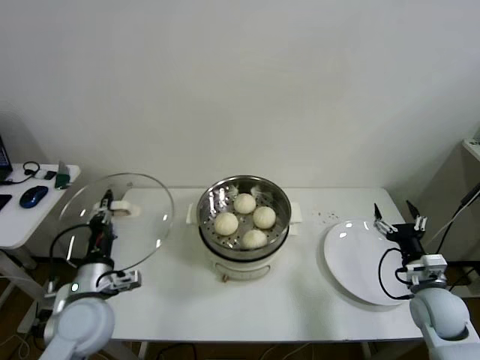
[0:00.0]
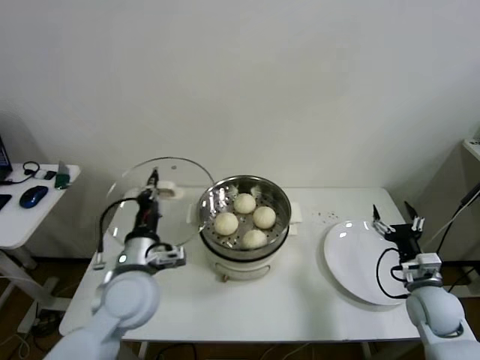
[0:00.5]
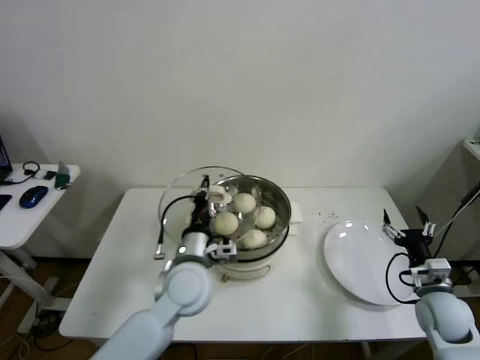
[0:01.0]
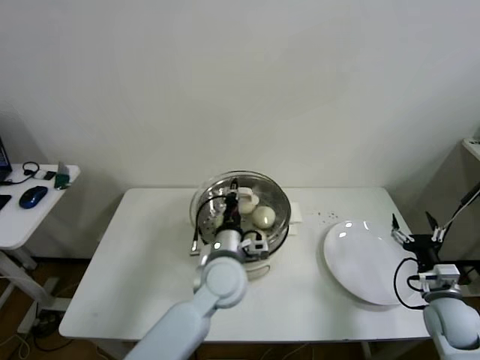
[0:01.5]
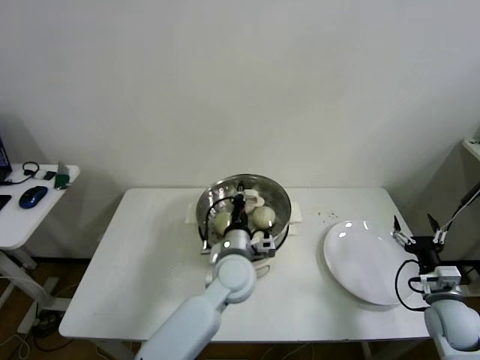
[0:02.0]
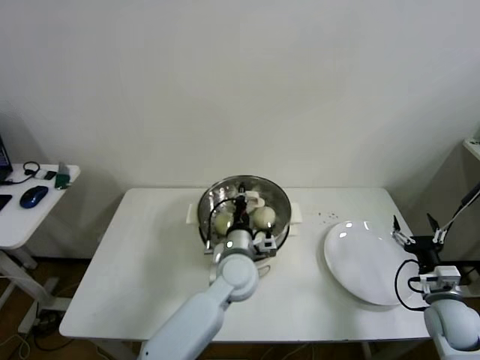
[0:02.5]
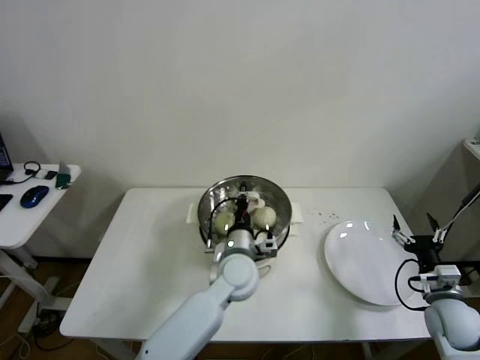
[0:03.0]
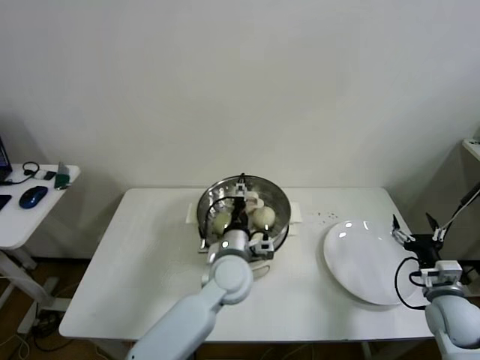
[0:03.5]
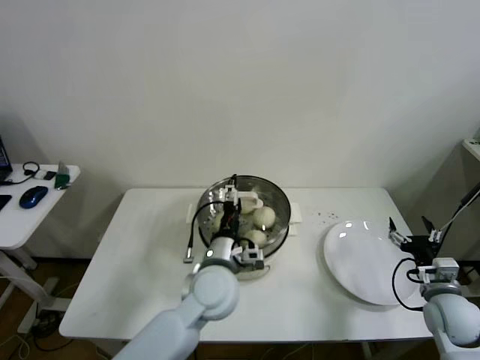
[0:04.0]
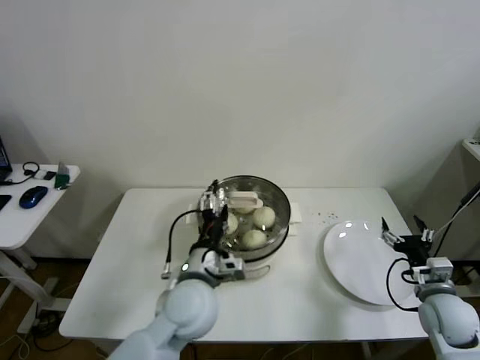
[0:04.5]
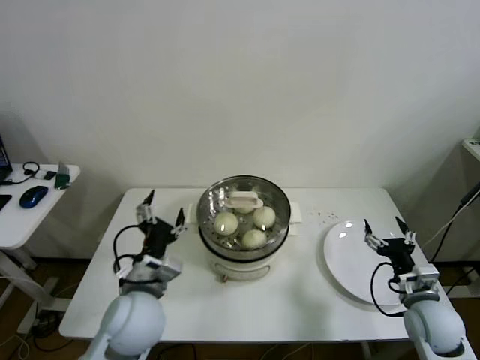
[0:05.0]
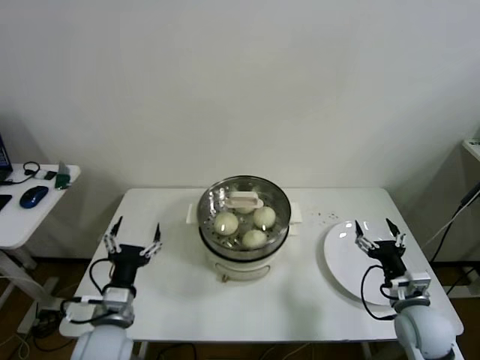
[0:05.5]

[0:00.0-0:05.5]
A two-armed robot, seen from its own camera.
Step, 0:00.0 to 0:03.0: Place the pot lid on the steamer with left gripper.
0:00.0 to 0:02.0: The left gripper moves to the right, about 25 cm.
0:02.0 to 0:03.5: The left gripper opens.
0:03.5 to 0:05.5: The left gripper goes about 25 cm to the left and backward; the right gripper shifts some 10 cm to the left.
